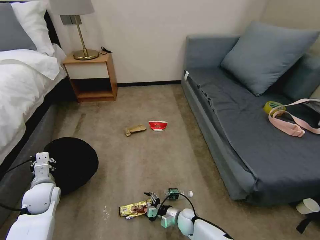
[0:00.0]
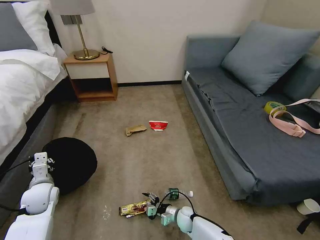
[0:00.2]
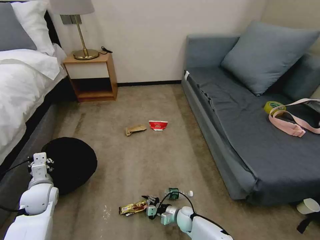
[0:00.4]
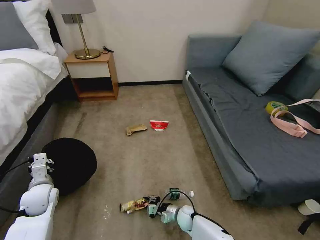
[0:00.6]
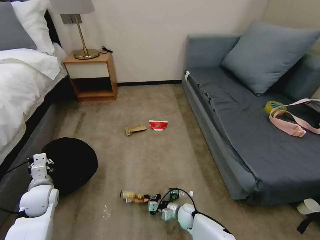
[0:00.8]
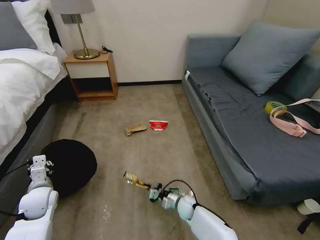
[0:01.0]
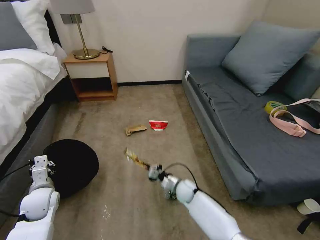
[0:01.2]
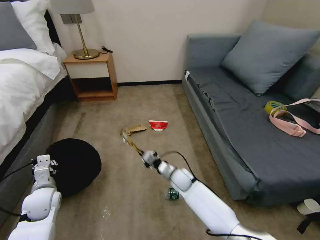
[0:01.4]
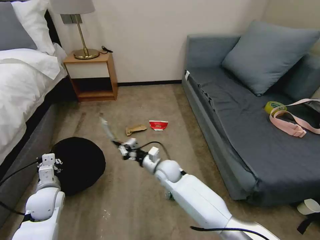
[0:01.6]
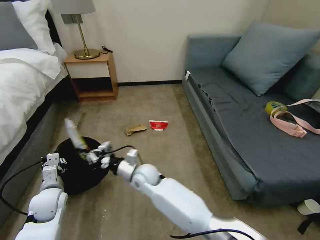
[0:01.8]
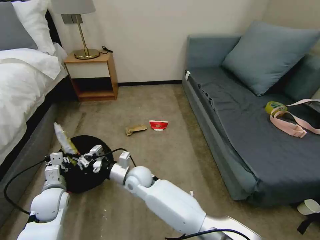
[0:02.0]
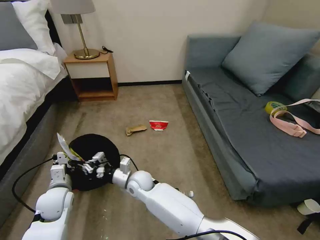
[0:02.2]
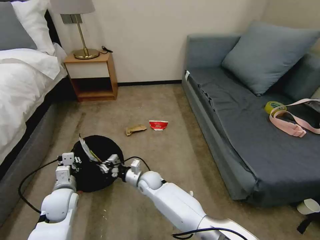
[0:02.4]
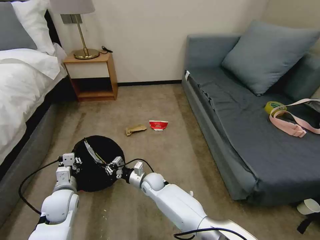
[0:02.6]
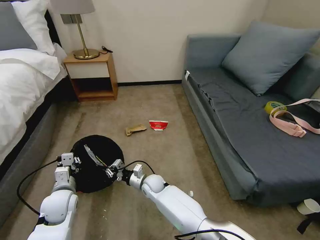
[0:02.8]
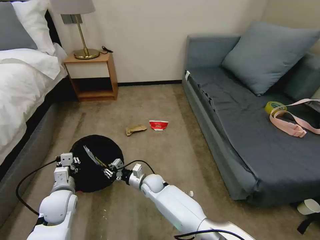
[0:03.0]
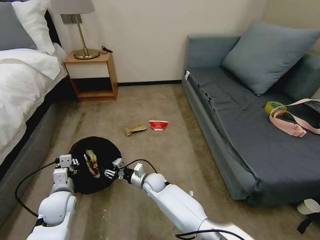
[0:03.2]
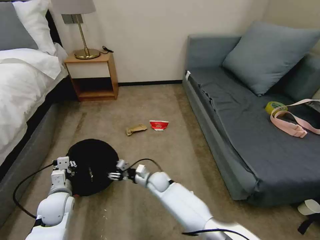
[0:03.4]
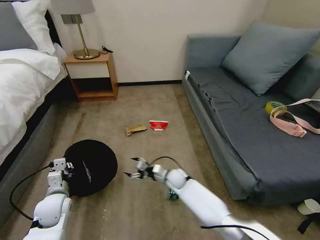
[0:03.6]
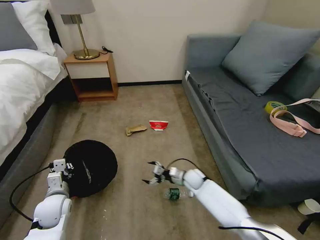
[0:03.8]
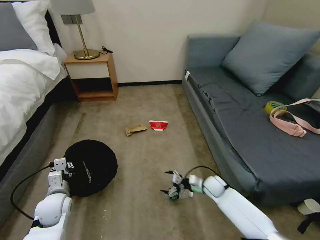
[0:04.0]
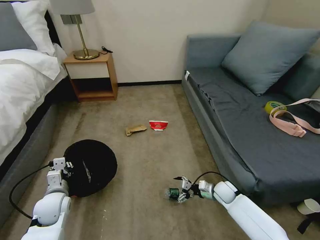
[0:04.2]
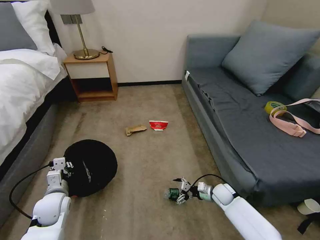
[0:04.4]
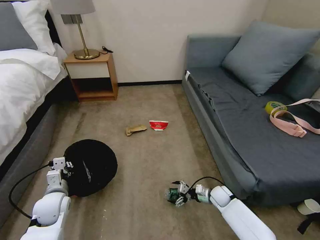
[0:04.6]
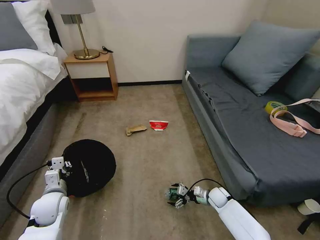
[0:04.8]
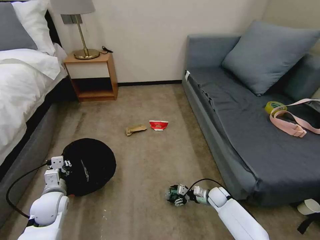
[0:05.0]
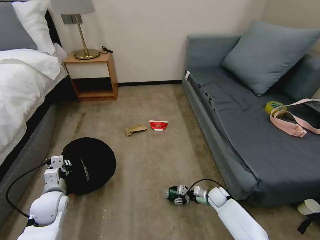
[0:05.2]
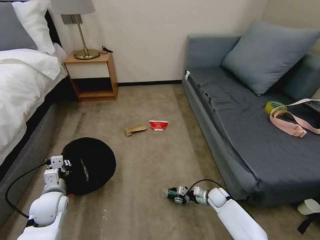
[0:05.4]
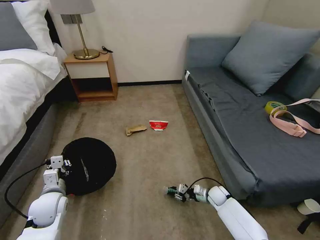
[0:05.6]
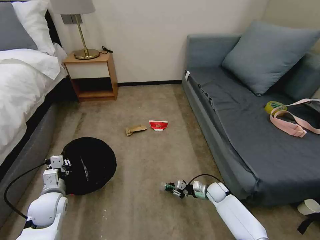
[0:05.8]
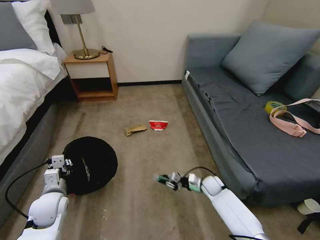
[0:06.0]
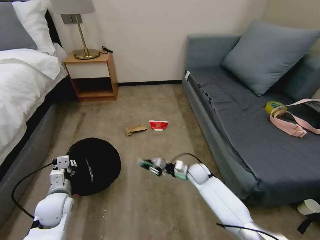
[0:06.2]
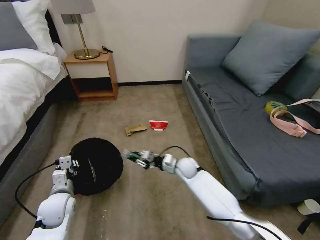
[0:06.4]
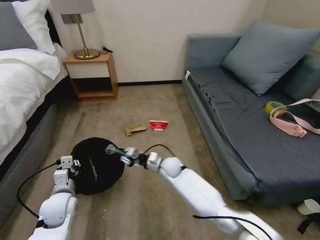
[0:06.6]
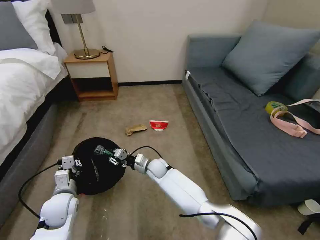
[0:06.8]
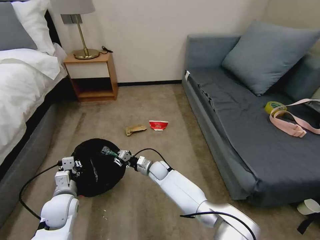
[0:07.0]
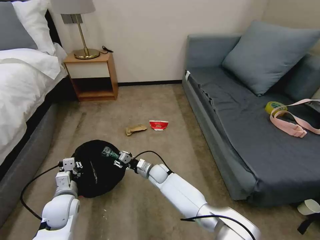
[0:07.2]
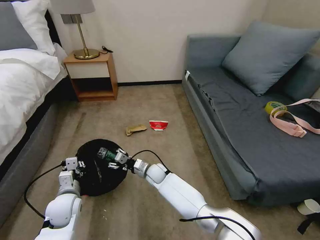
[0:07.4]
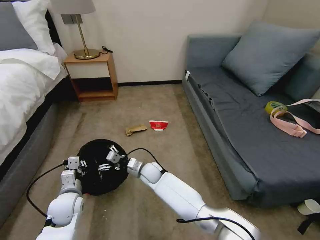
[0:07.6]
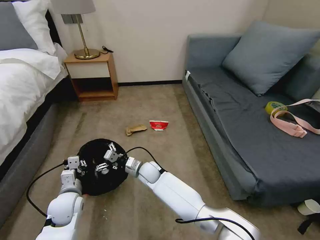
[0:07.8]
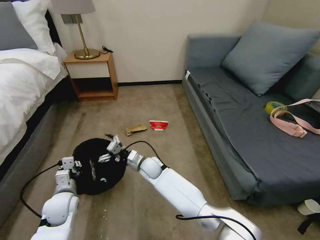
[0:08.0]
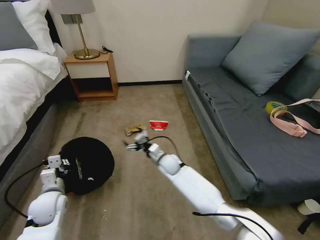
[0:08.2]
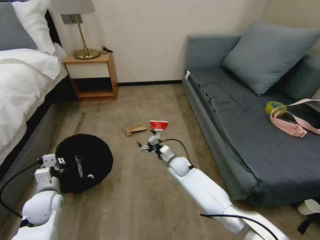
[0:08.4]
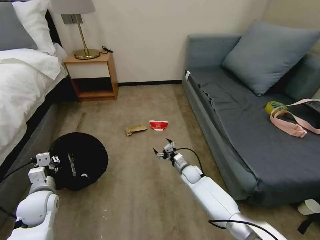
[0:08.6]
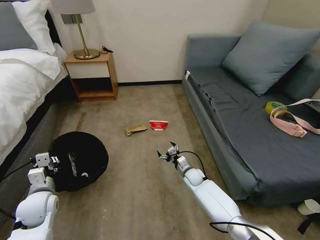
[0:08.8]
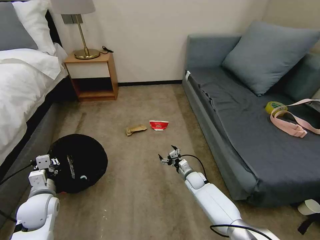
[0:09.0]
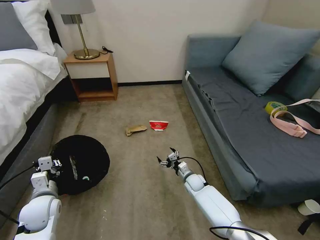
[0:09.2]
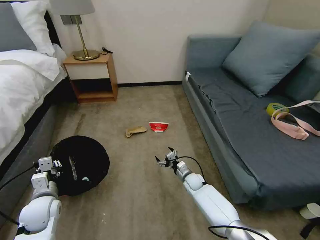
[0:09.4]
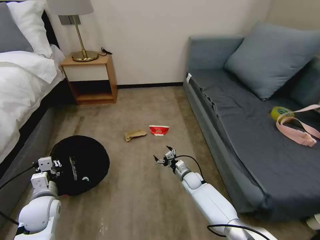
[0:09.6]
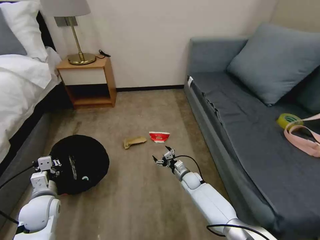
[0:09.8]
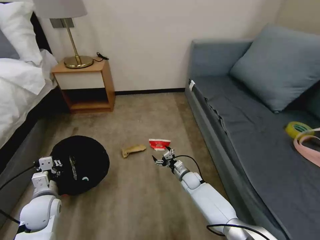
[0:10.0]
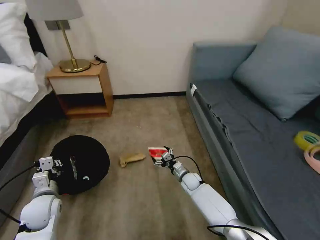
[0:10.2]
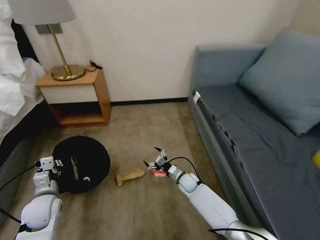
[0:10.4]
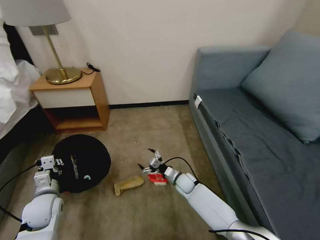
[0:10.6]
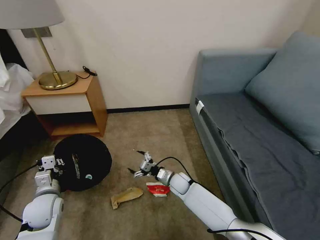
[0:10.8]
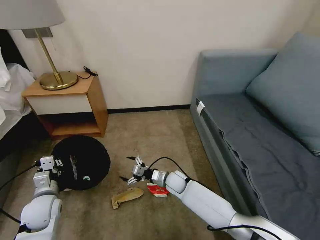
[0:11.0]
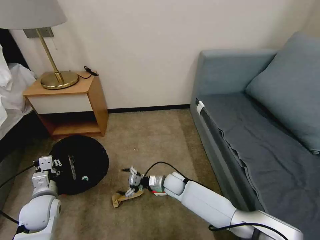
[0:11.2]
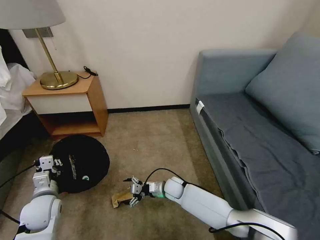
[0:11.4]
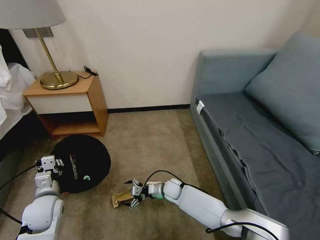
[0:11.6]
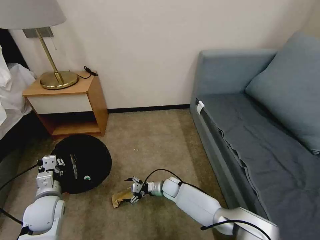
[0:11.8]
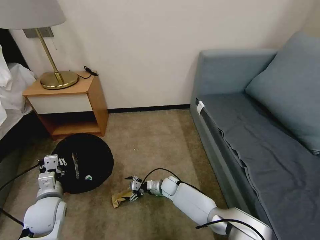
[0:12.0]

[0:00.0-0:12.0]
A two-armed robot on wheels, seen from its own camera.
Task of the whole recording: Pick up the trash bin, then pick up the garbage on the floor and place it into the trash bin.
0:00.0 to 0:01.6: The right gripper heads upward, forward and to the left, covering approximately 30 cm, and closes up.
0:01.6 to 0:03.0: The right gripper shifts some 10 cm downward and to the left.
0:03.0 to 0:04.4: The right gripper goes about 30 cm to the right, and opens up.
0:04.4 to 0:06.0: The right gripper travels to the left by roughly 5 cm, and closes its fingers.
0:06.0 to 0:07.6: The right gripper goes approximately 30 cm to the left, and opens.
0:07.6 to 0:09.0: The left gripper shifts roughly 5 cm to the left. Meanwhile the right gripper shifts roughly 25 cm to the right and downward.
0:10.4 to 0:12.0: The right gripper shifts approximately 10 cm to the left.

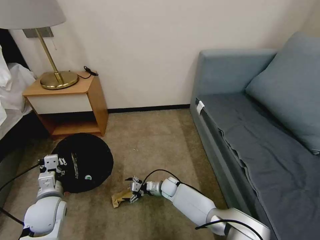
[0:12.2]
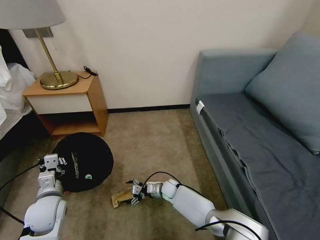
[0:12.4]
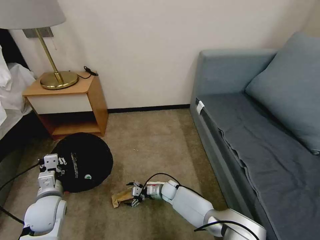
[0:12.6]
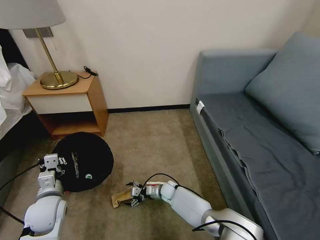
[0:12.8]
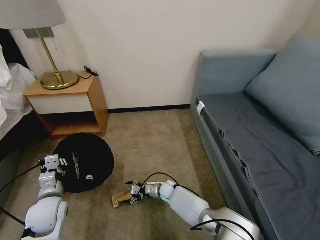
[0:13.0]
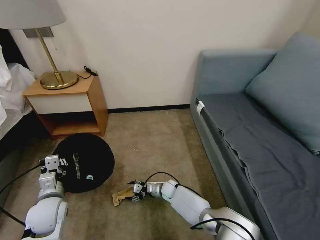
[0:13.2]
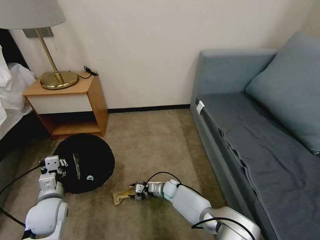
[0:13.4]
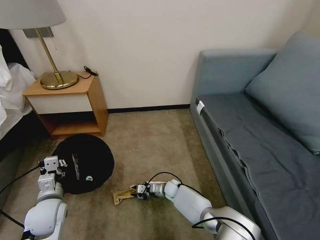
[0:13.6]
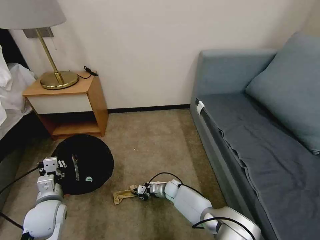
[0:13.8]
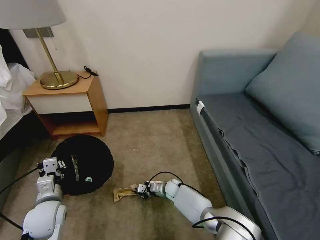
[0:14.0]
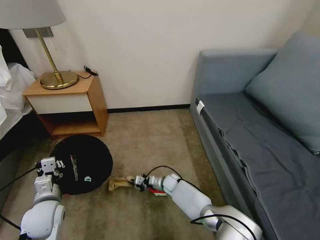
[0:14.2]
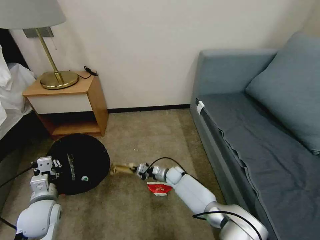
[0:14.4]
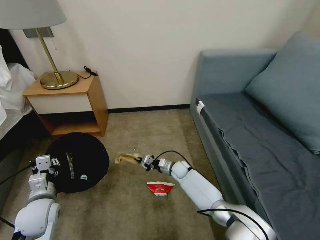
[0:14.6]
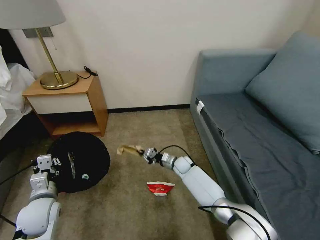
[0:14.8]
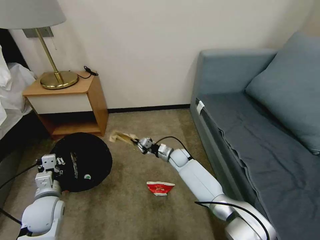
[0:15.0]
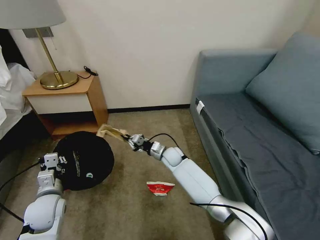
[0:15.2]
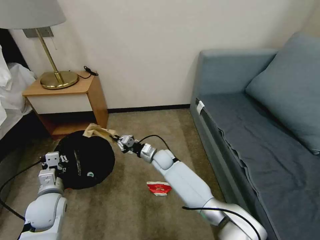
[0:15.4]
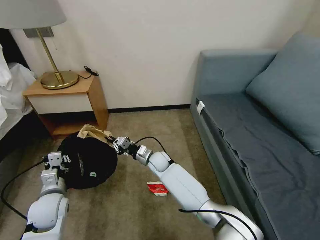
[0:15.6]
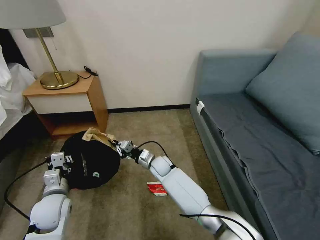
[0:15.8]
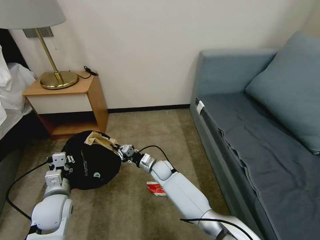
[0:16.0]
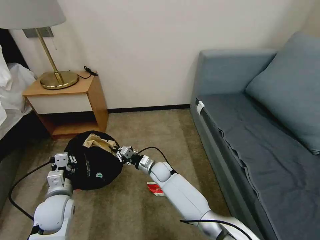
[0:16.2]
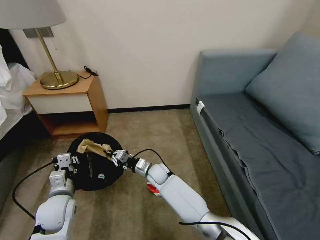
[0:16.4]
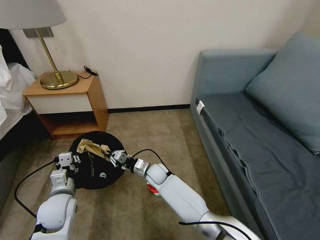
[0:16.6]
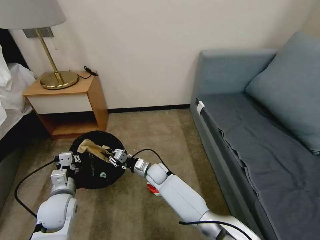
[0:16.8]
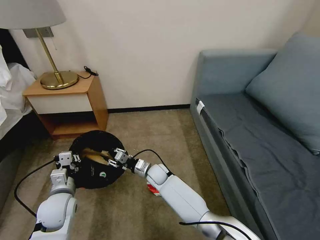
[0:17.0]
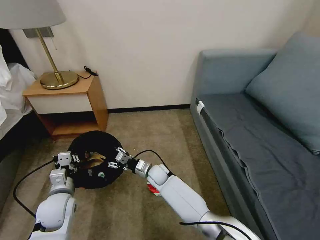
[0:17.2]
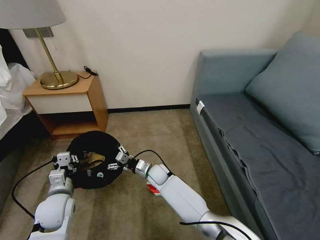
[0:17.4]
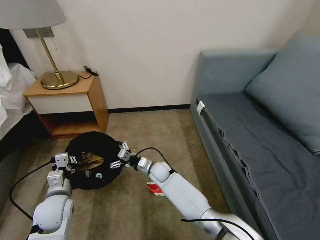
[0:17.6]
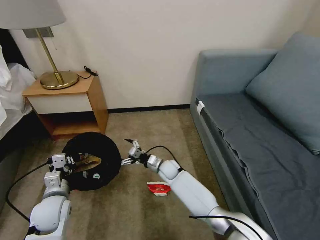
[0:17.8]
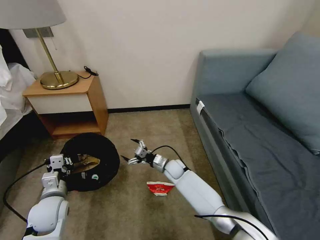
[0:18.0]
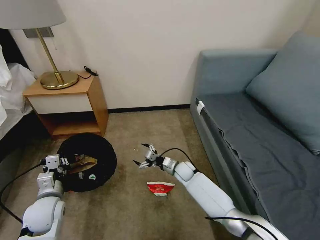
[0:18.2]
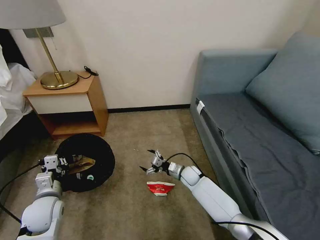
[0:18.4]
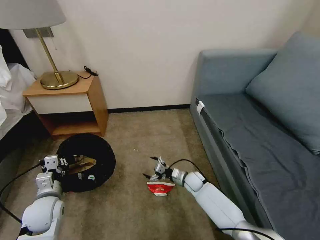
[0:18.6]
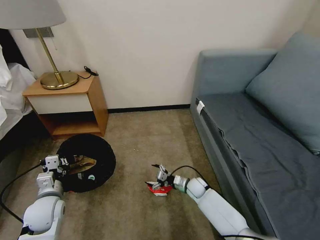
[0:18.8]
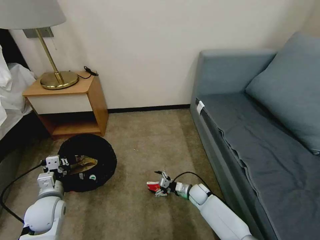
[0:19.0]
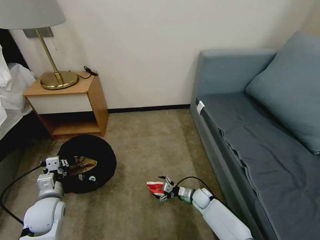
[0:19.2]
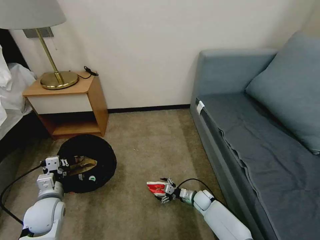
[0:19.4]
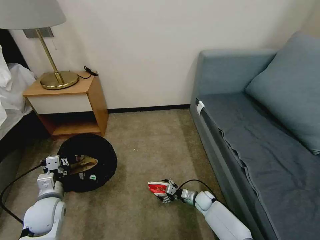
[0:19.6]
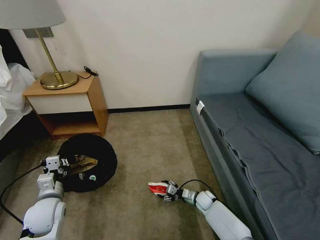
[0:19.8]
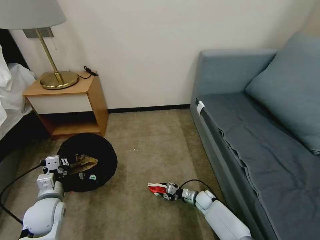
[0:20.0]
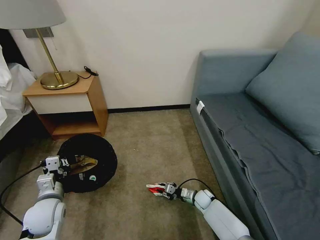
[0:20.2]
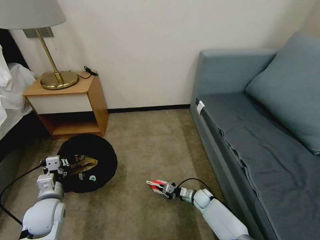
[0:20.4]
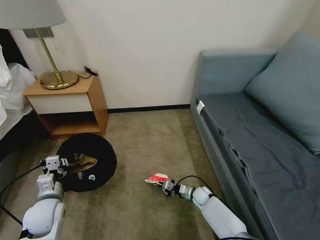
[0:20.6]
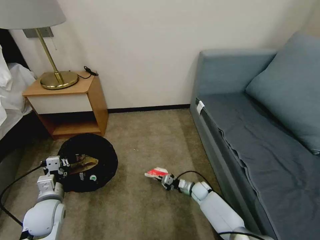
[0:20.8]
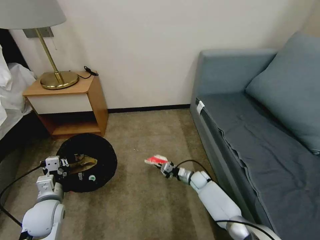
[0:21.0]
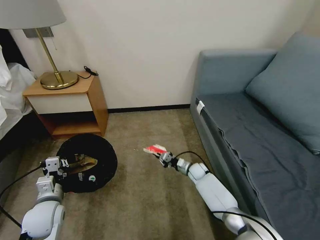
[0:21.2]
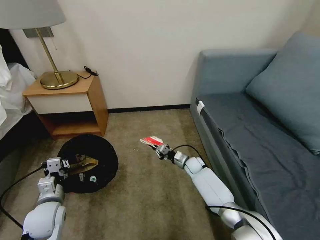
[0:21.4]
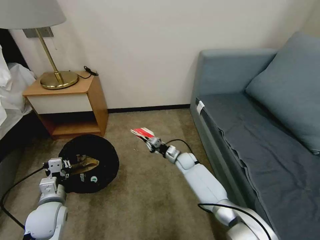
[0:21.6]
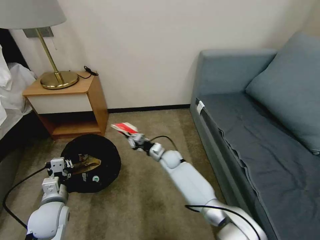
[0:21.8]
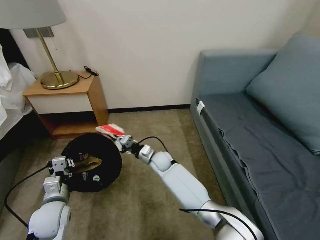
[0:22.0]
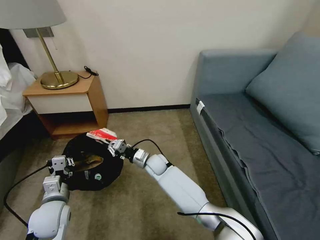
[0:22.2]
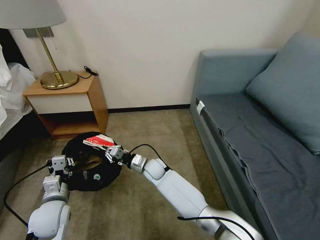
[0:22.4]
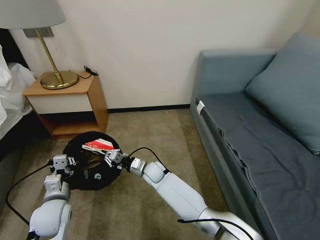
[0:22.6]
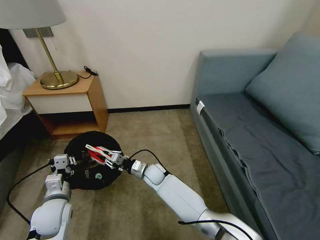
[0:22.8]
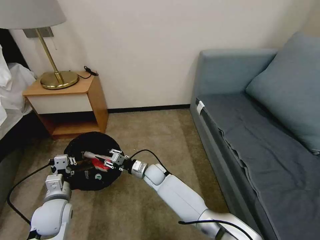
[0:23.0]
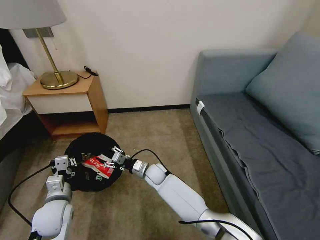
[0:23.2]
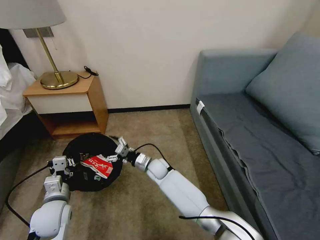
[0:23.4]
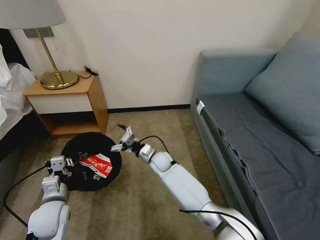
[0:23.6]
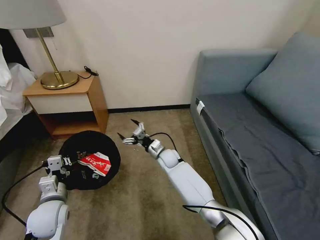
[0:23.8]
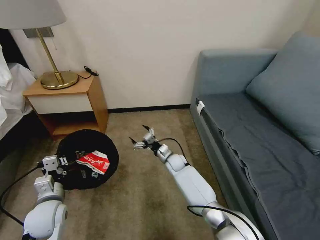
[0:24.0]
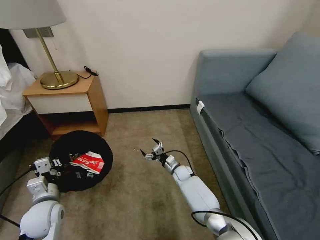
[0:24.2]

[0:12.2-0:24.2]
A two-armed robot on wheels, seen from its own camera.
Task of the whole recording: Pick up the trash bin, then pick up the garbage on the floor and place it into the trash bin.
0:12.2 to 0:13.8: The right gripper closes.
0:13.8 to 0:15.2: The right gripper goes about 20 cm upward and forward.
0:15.2 to 0:16.6: The right gripper goes some 10 cm to the left and backward.
0:16.6 to 0:18.2: The right gripper goes approximately 15 cm to the right, and opens.
0:18.2 to 0:19.8: The right gripper shifts some 20 cm downward, to the right and backward.
0:19.8 to 0:21.2: The right gripper moves forward and upward, approximately 15 cm, and closes up.
0:21.2 to 0:22.6: The right gripper is displaced to the left by roughly 20 cm.
0:22.6 to 0:24.2: The right gripper heads to the right and downward, covering approximately 15 cm, and opens.
